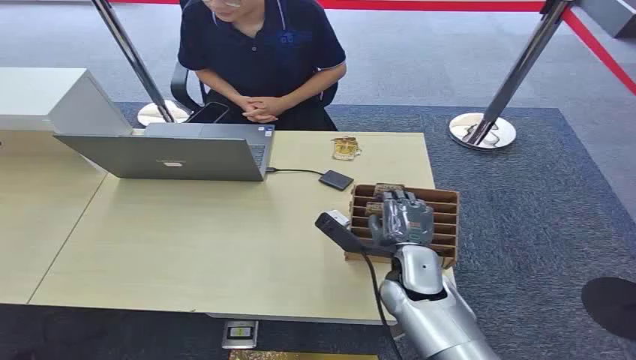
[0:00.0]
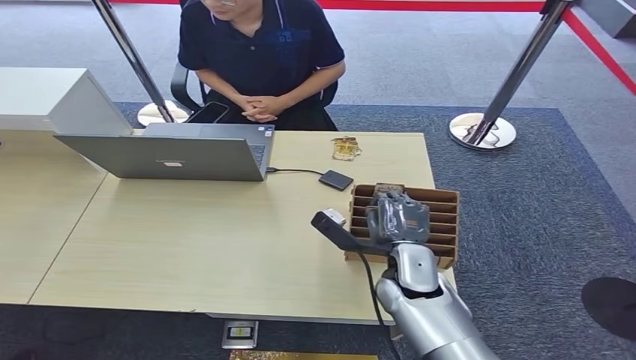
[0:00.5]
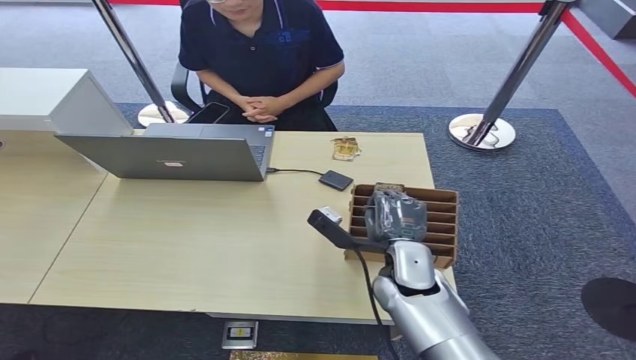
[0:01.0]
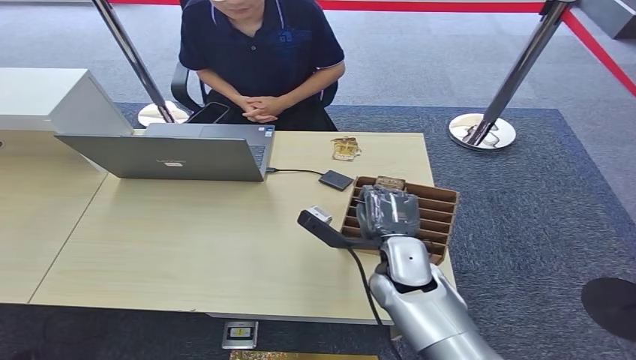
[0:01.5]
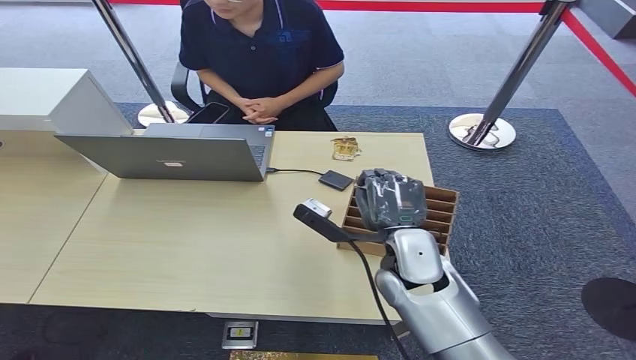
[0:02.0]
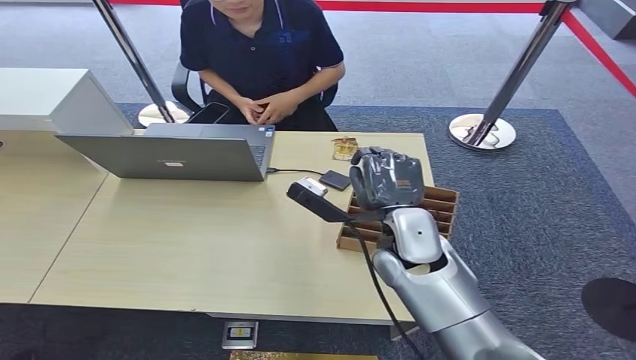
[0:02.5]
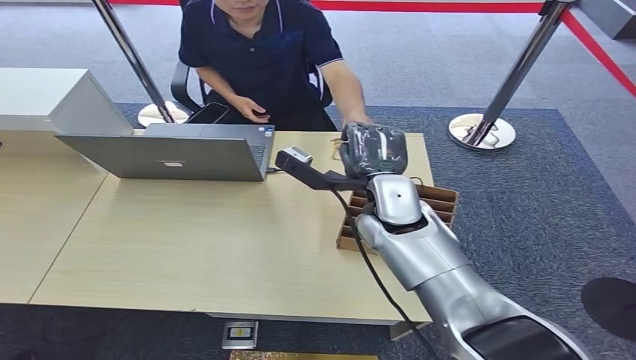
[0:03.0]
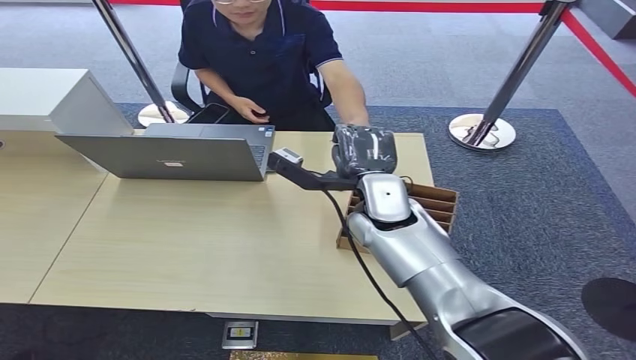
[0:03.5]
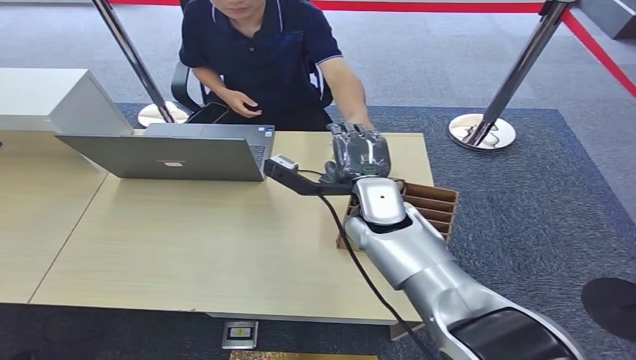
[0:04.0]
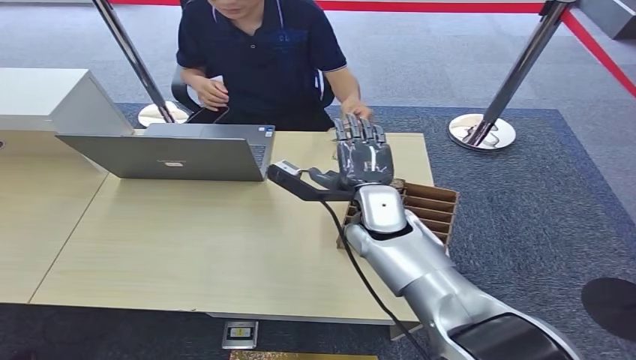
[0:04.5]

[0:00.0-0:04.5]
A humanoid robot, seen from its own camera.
Step, 0:00.0 to 0:02.5: Pick up the room card from the card holder.
Step, 0:03.0 to 0:04.5: Hand the room card to the target.
0:02.0 to 0:04.5: The right hand travels forward by roughly 5 cm.

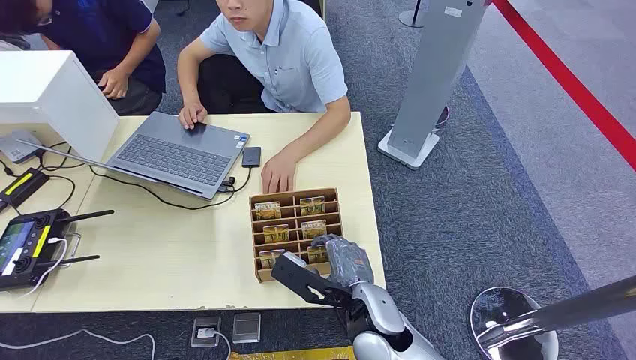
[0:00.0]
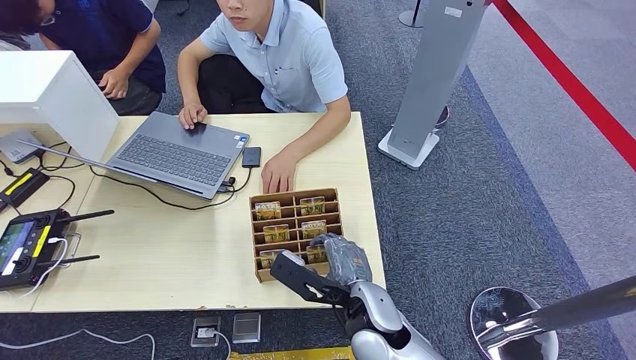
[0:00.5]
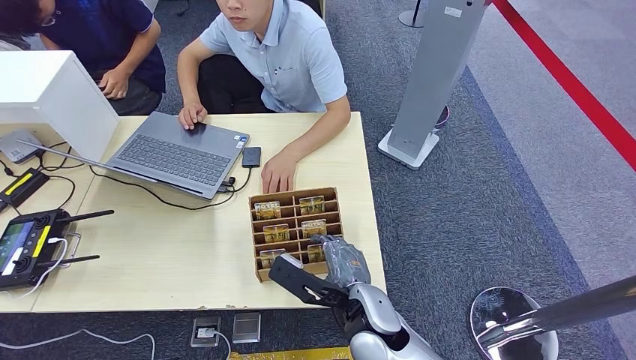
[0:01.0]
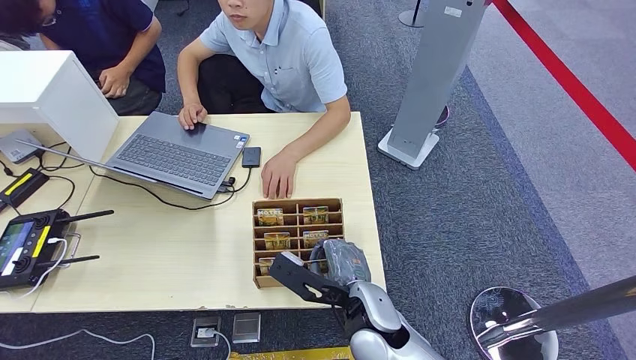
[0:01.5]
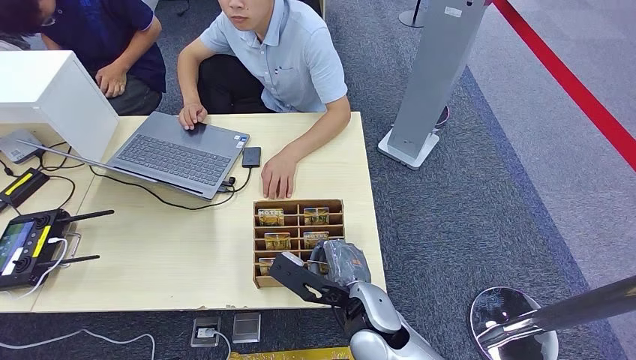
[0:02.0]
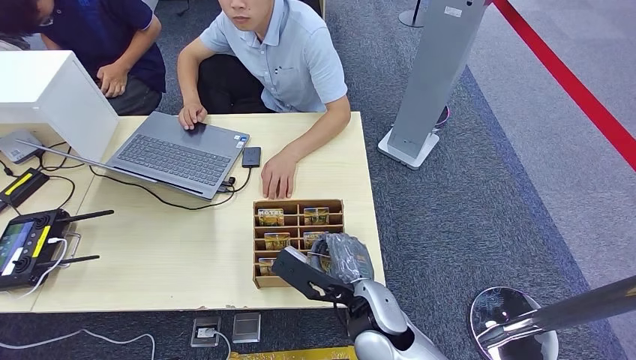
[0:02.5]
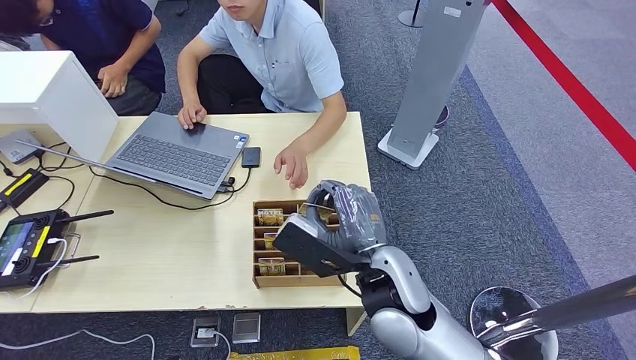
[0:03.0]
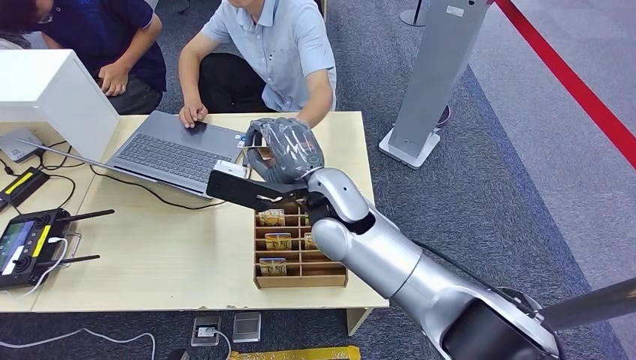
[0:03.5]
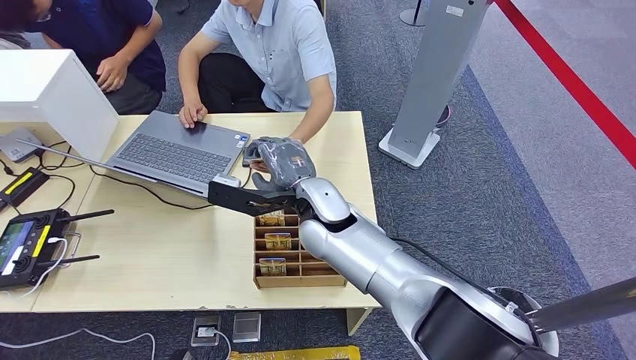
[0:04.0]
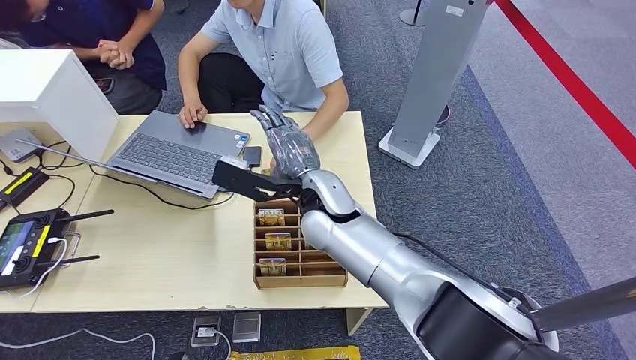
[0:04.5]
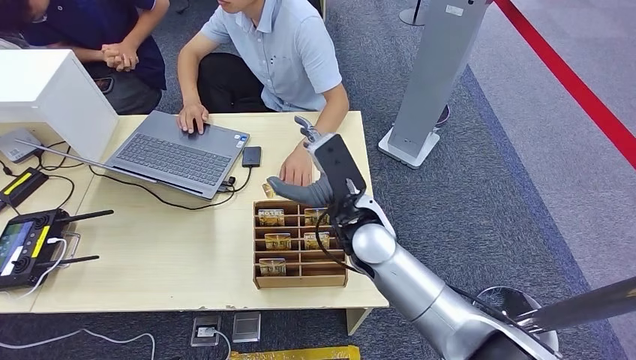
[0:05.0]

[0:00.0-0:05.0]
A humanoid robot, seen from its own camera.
Step, 0:00.0 to 0:02.5: Pick up the room card from the card holder.
Step, 0:03.5 to 0:05.0: Hand the room card to the target.
0:02.5 to 0:05.0: The right hand is displaced forward and upward by about 15 cm.
